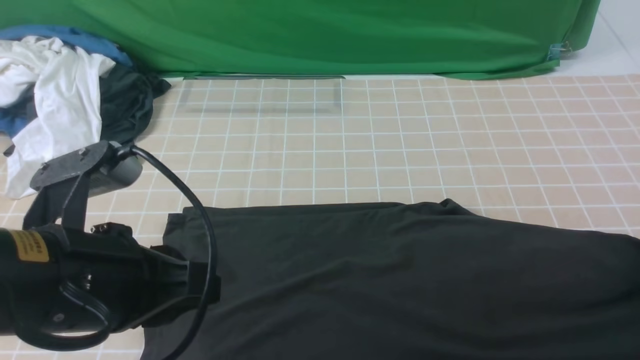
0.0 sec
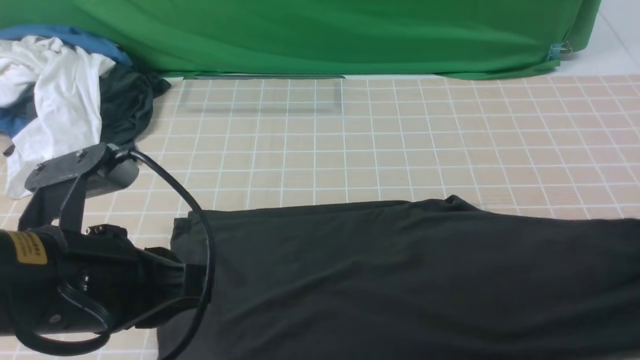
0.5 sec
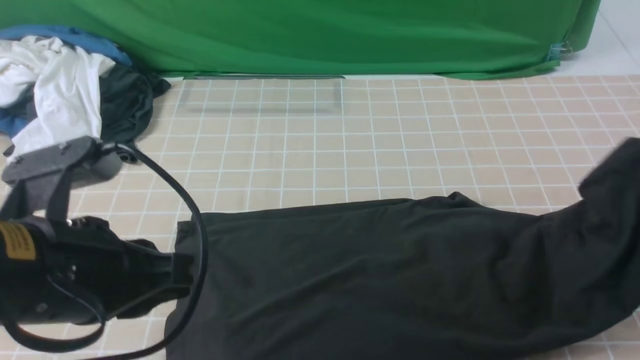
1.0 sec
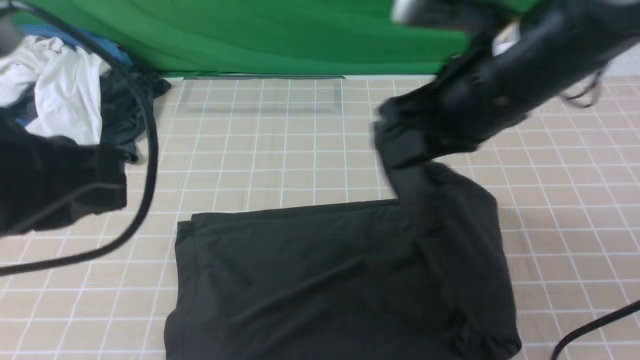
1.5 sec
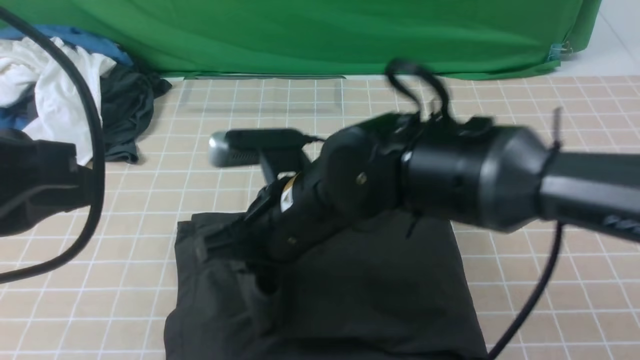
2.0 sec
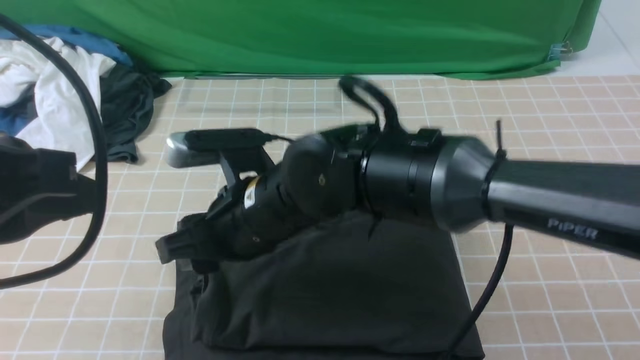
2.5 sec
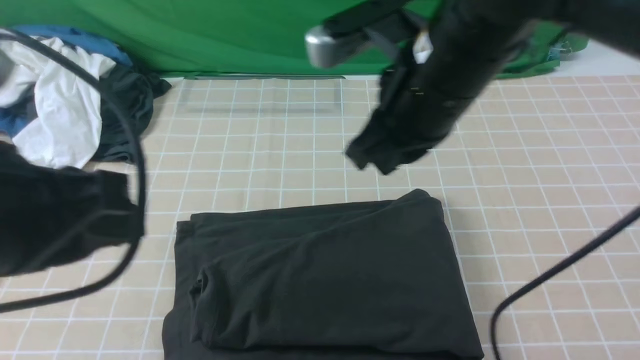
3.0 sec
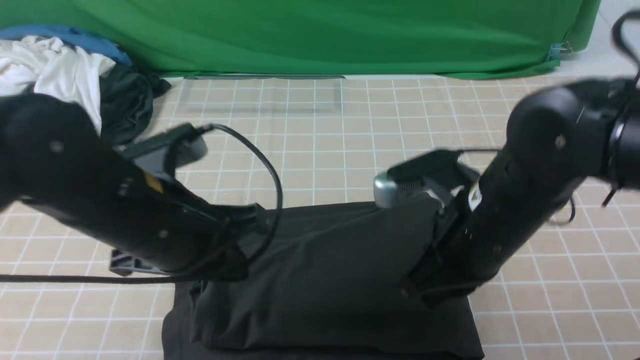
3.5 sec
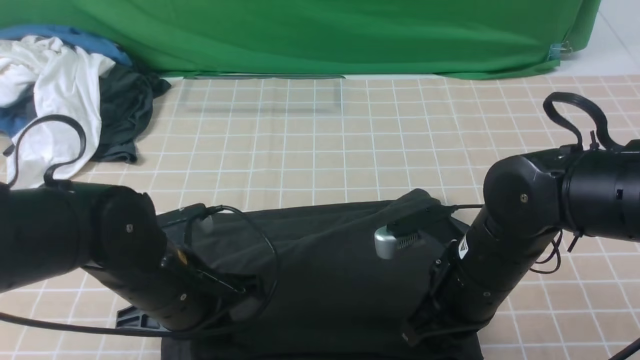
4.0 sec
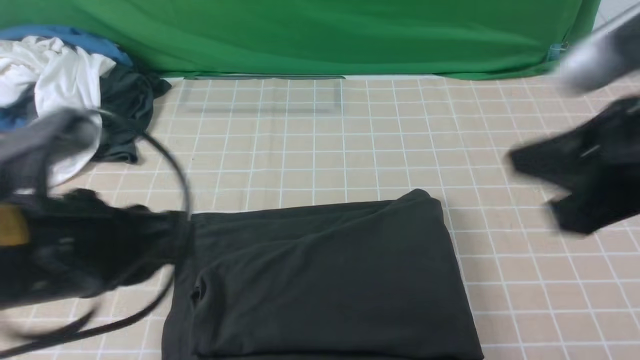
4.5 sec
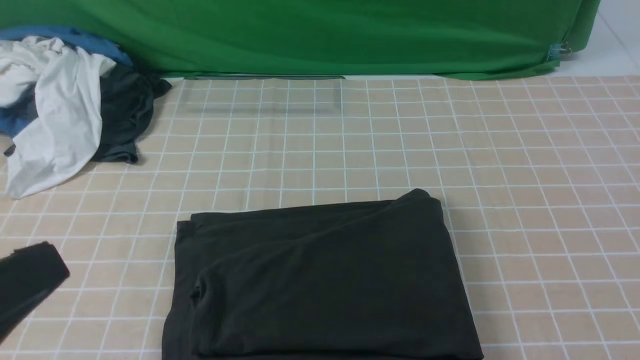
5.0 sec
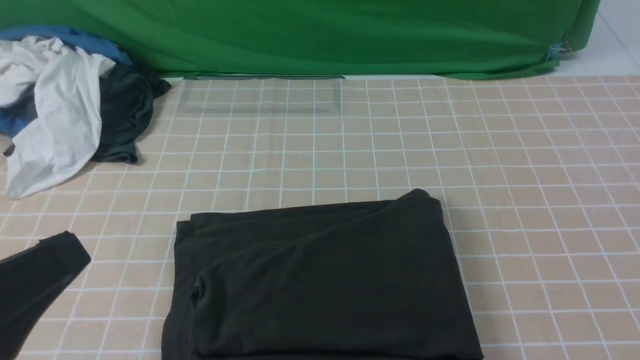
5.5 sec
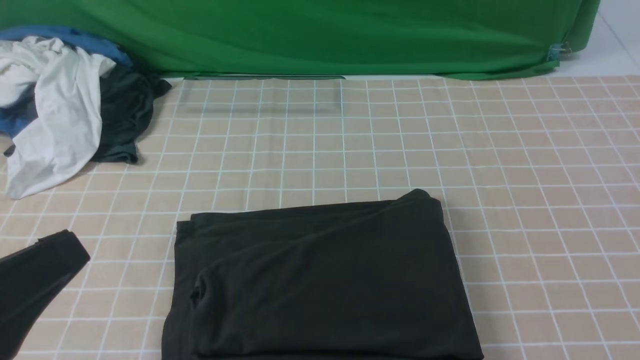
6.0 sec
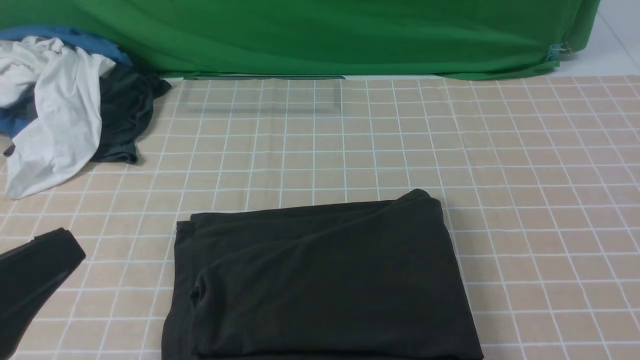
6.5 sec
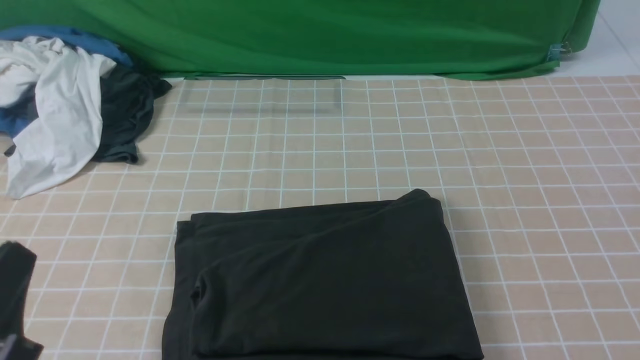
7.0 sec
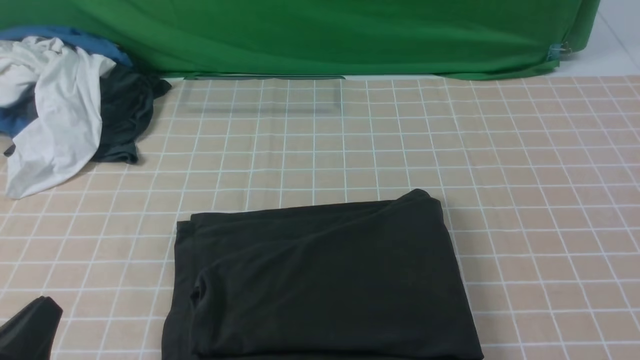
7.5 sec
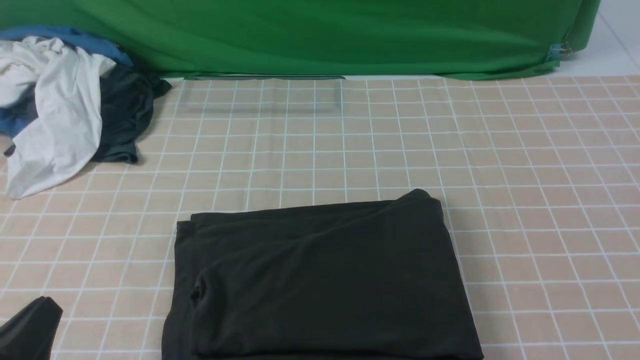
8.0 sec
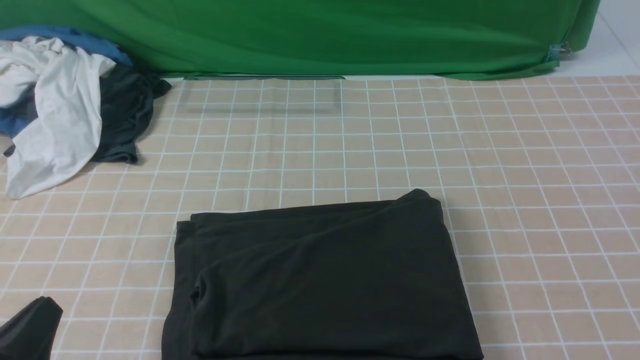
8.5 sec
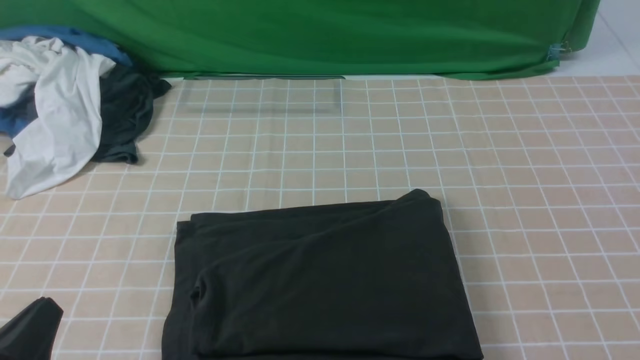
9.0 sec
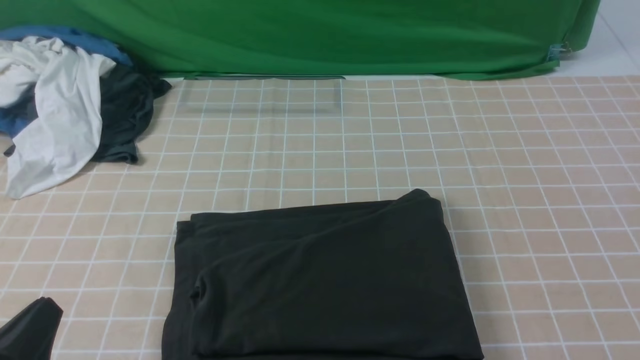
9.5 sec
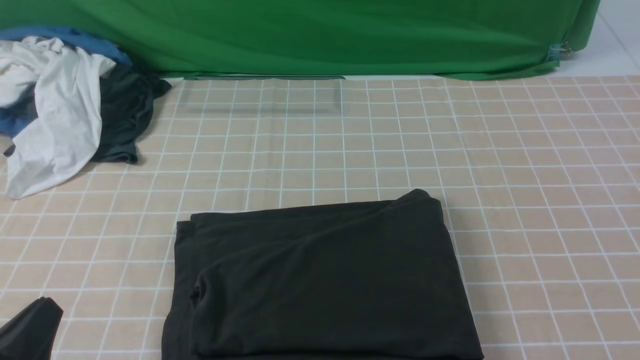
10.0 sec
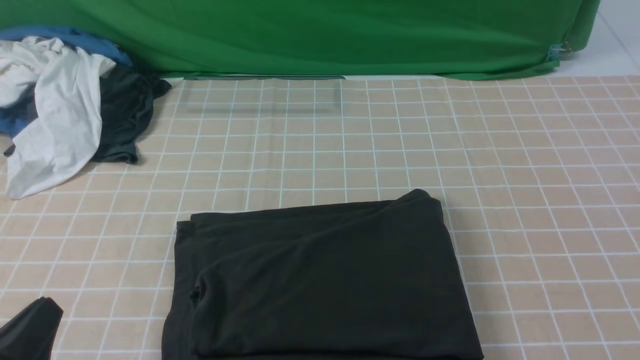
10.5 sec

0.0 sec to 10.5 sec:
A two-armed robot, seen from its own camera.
Step, 0.5 sec to 2.5 sec: use the right arm to drag the right edge of the fabric to the left and folds it over the left edge.
0.0 sec to 2.0 sec: The left gripper shifts about 10 cm upward; the right gripper shifts roughly 50 cm to the left, and closes.
2.0 sec to 4.0 sec: The right gripper moves to the right, some 15 cm, while the left gripper travels downward and forward by some 25 cm.
4.0 sec to 6.5 sec: The left gripper is displaced backward, upward and to the left by some 20 cm; the right gripper moves backward, upward and to the right, approximately 40 cm.
6.5 sec to 8.5 sec: The left gripper moves downward, about 15 cm.

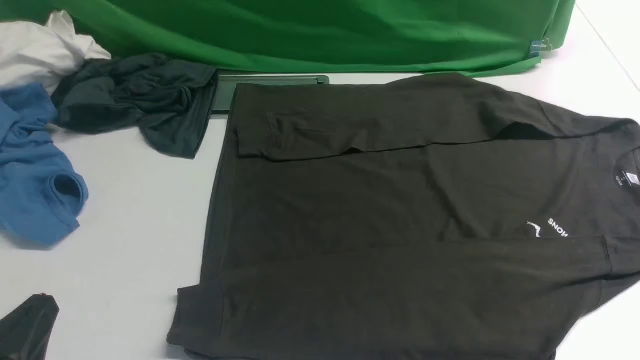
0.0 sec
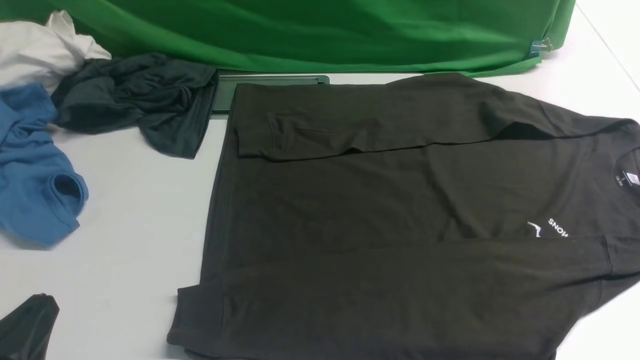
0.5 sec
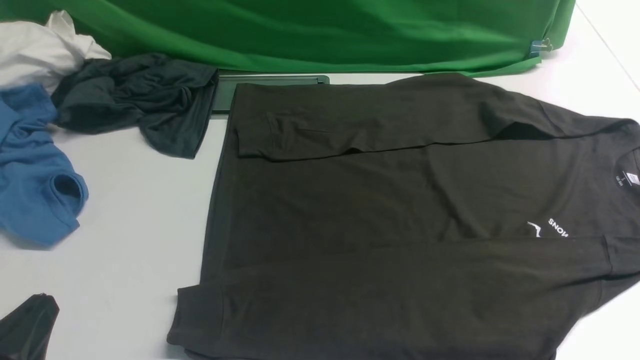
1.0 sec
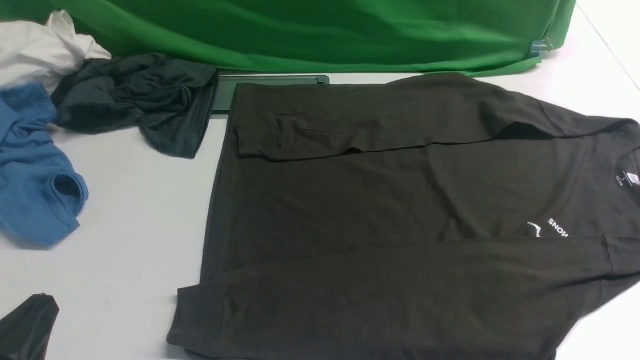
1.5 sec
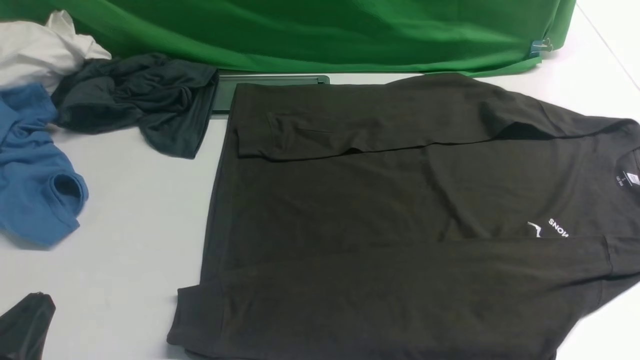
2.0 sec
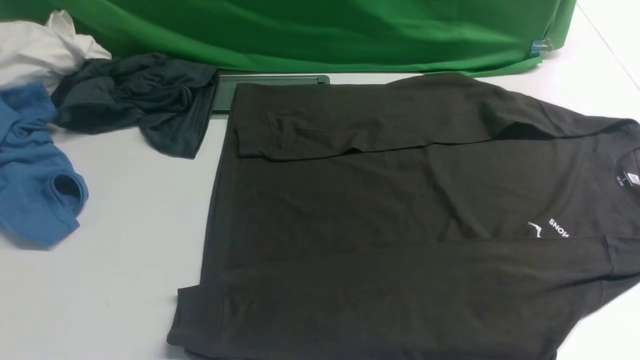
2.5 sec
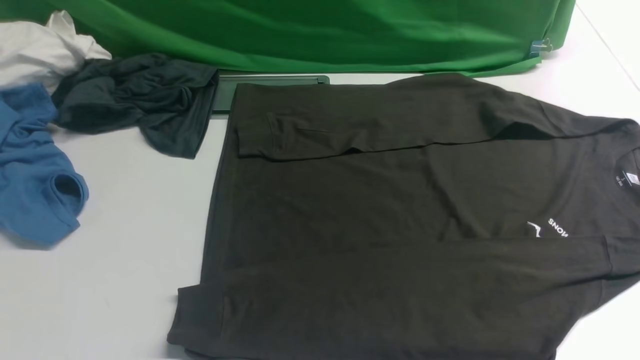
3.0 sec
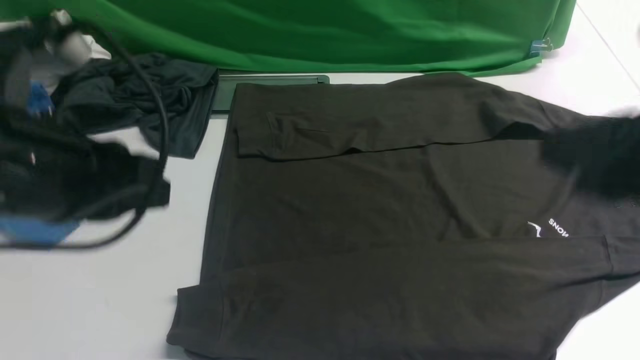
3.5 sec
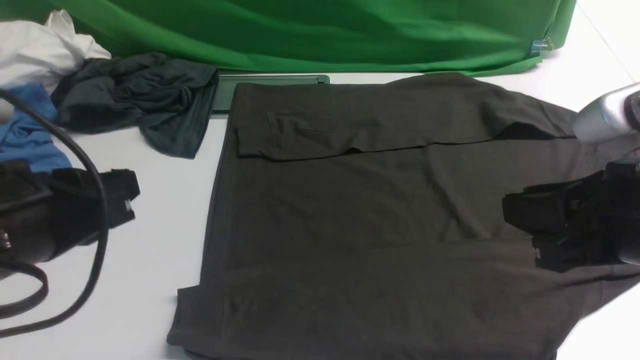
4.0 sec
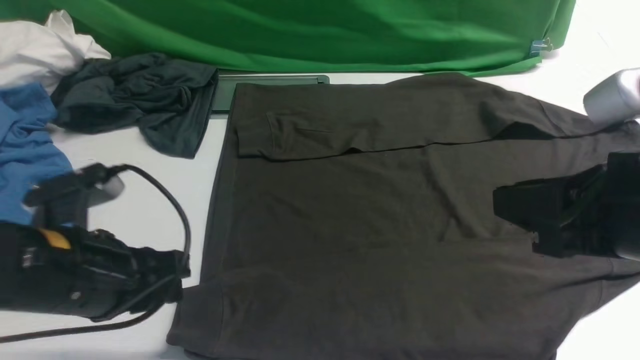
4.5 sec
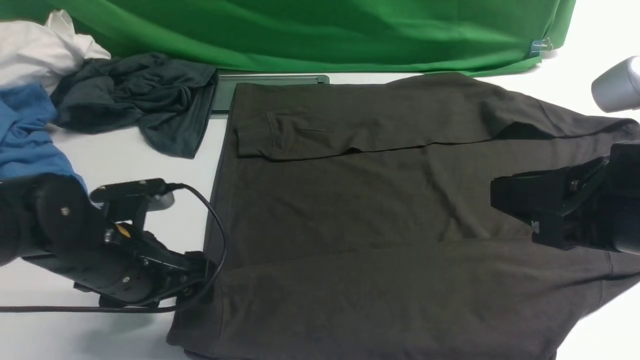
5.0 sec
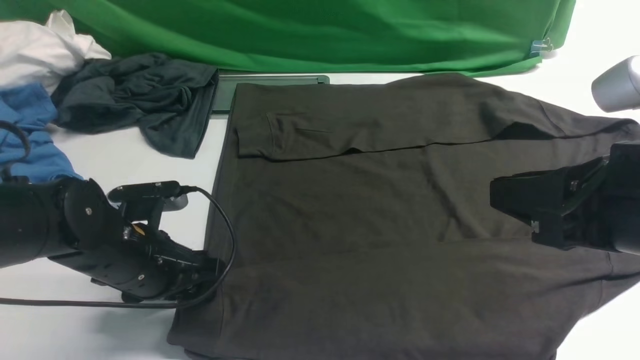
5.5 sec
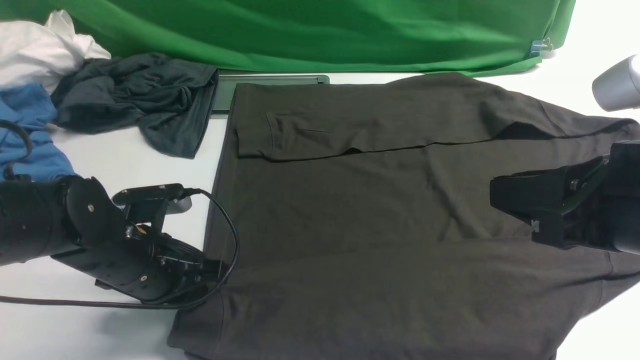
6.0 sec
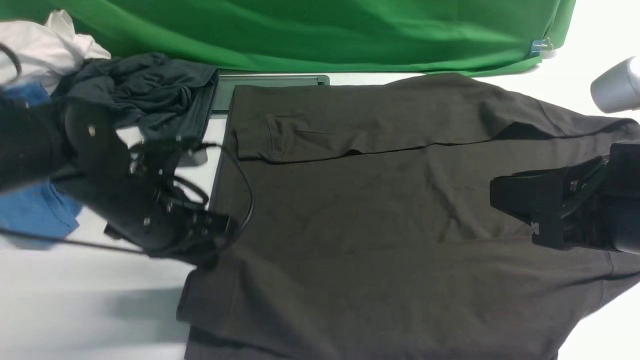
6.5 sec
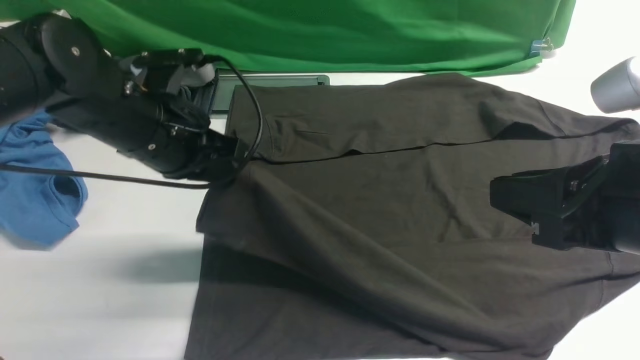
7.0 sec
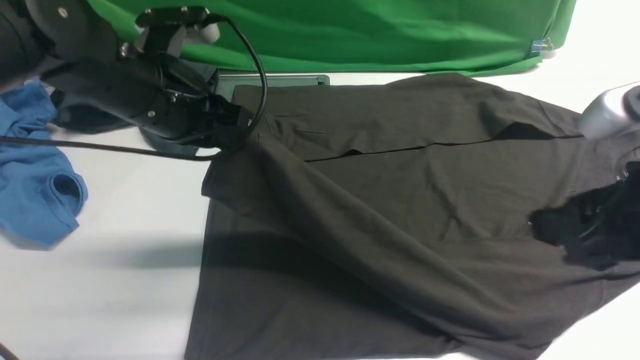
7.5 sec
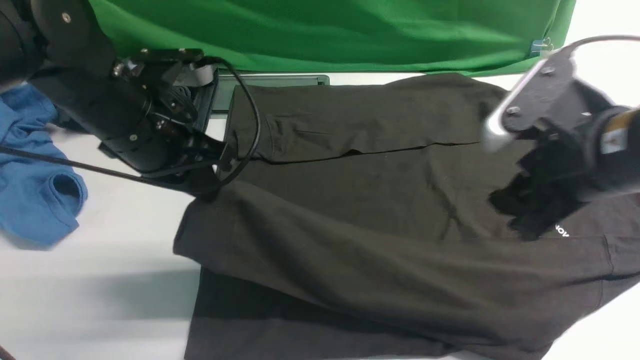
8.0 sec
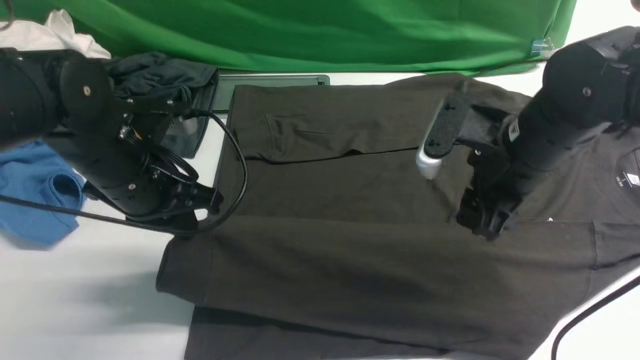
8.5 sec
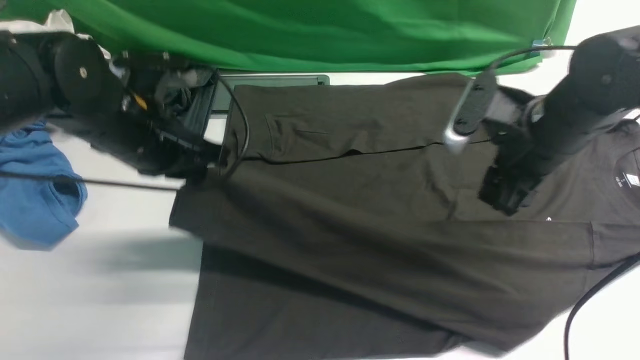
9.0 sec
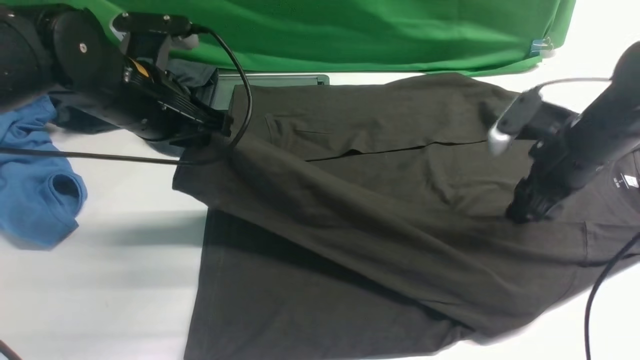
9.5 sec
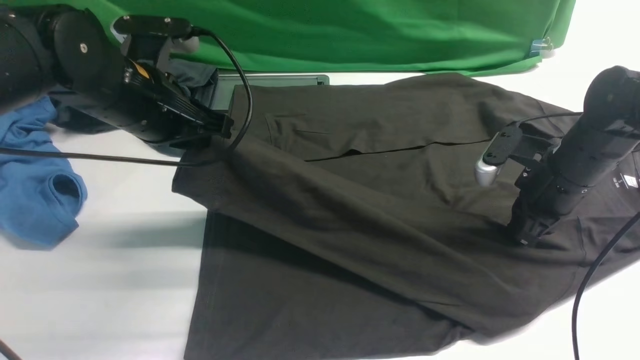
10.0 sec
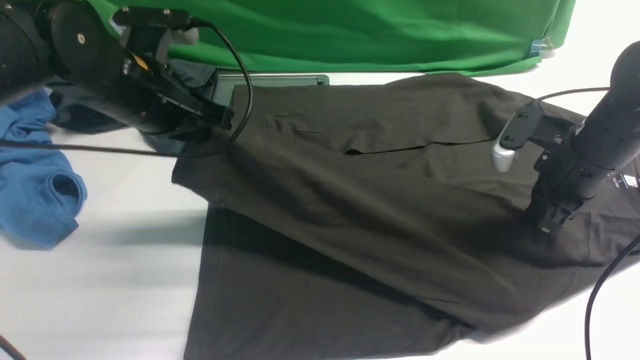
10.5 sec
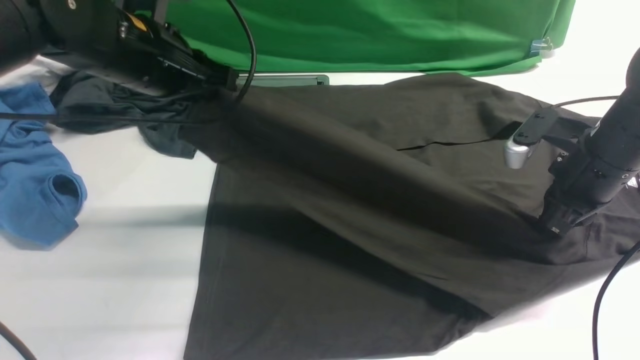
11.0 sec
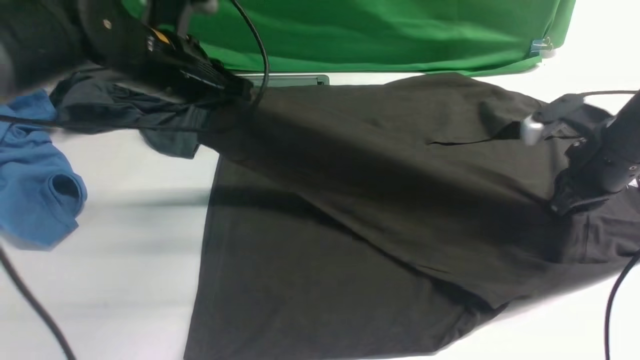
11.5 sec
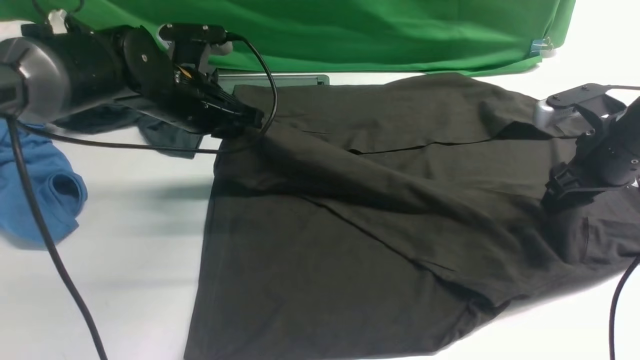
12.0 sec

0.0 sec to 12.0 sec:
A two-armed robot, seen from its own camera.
Step, 0.0 sec to 6.0 sec: use the left arm to clamp the cuff closest to it.
2.0 sec to 4.0 sec: The right gripper goes roughly 20 cm to the left, forward and upward. The left gripper travels upward and forward by roughly 15 cm.
4.0 sec to 6.0 sec: The left gripper moves downward and forward, about 15 cm, and opens, then closes again.
6.0 sec to 8.0 sec: The left gripper is displaced upward and forward by some 15 cm. The right gripper goes about 10 cm forward, and opens up.
8.0 sec to 10.0 sec: The right gripper shifts about 15 cm downward, forward and to the right, and closes its fingers.
10.0 sec to 12.0 sec: The left gripper travels forward by about 5 cm. Meanwhile the right gripper moves to the right, roughly 5 cm, and opens its fingers.
